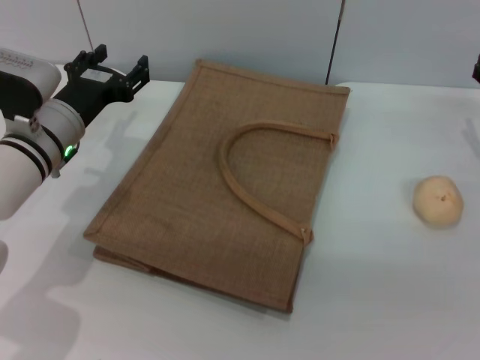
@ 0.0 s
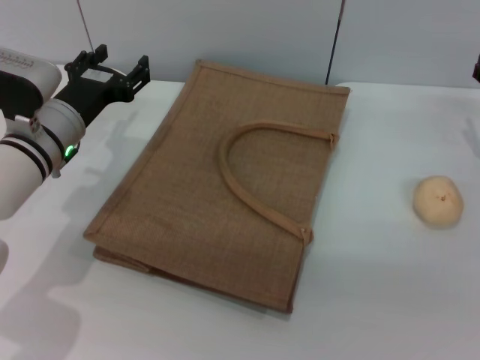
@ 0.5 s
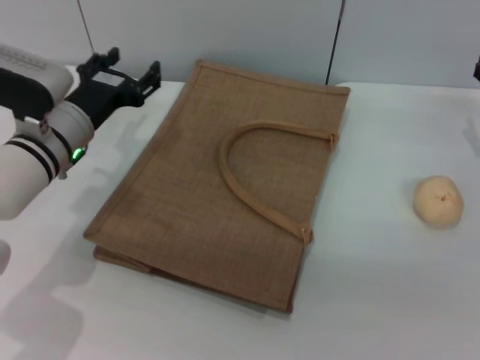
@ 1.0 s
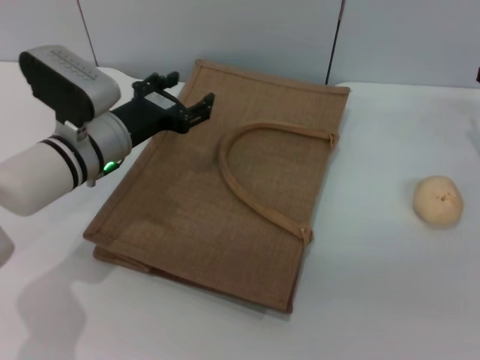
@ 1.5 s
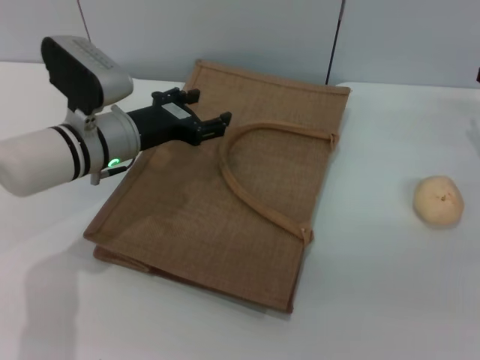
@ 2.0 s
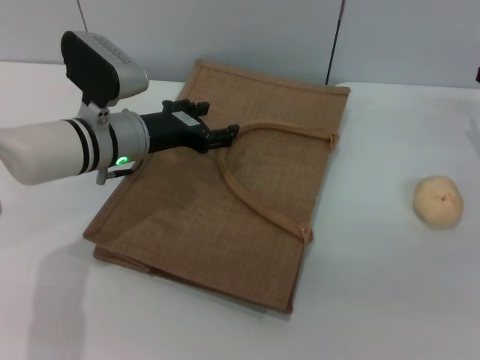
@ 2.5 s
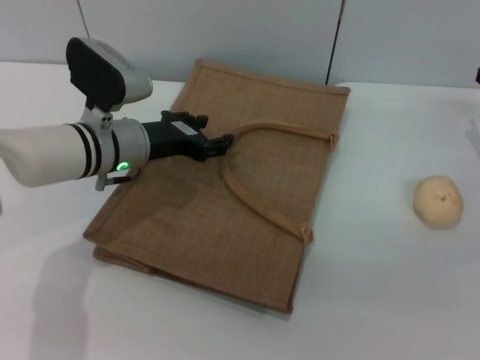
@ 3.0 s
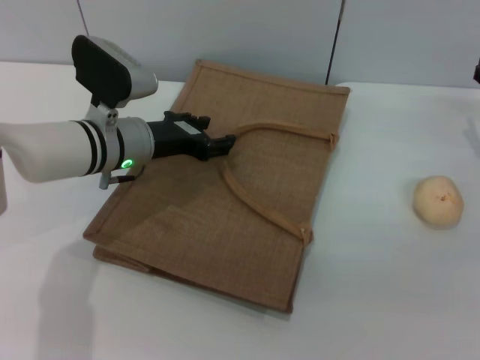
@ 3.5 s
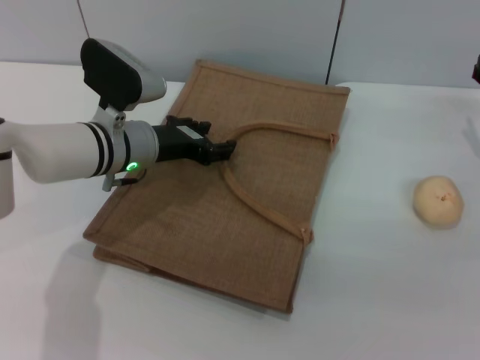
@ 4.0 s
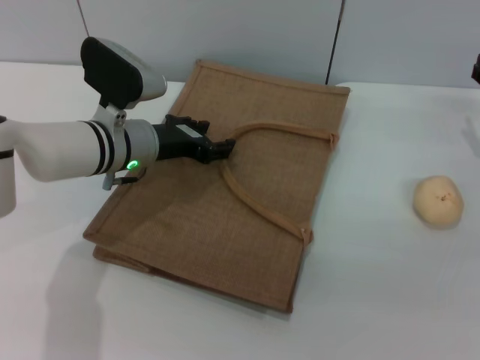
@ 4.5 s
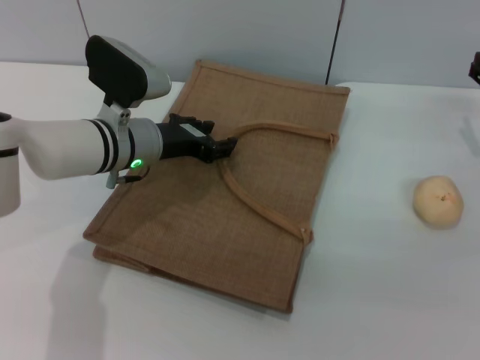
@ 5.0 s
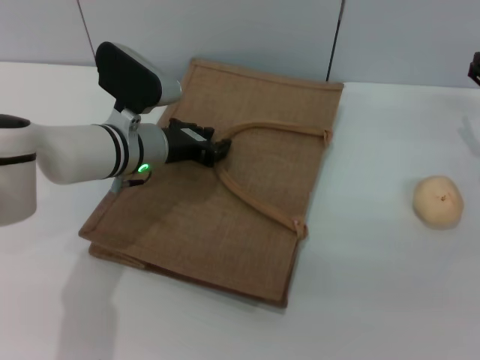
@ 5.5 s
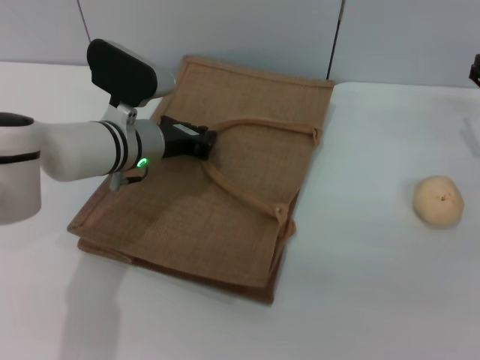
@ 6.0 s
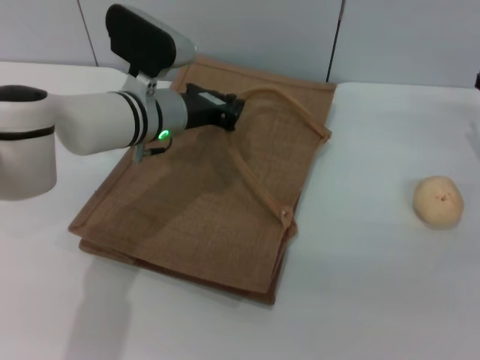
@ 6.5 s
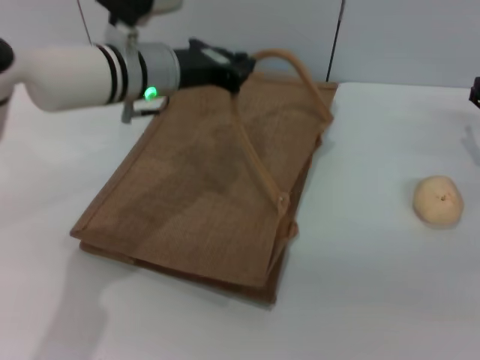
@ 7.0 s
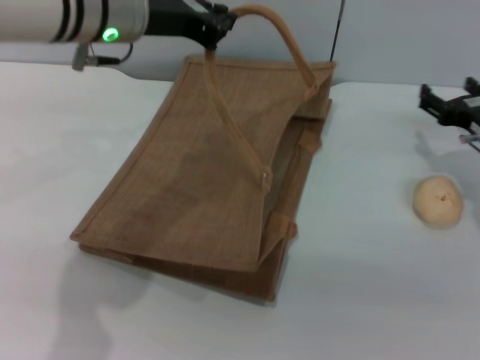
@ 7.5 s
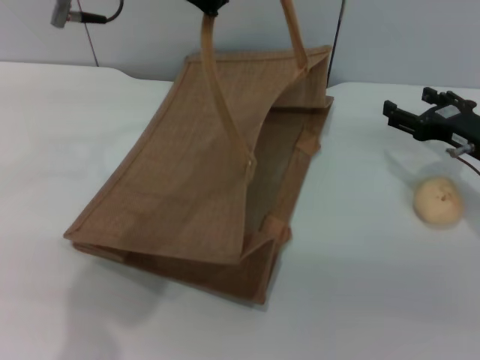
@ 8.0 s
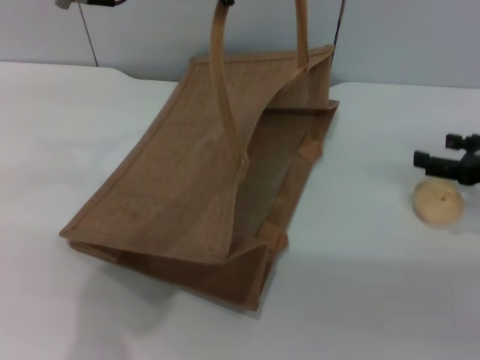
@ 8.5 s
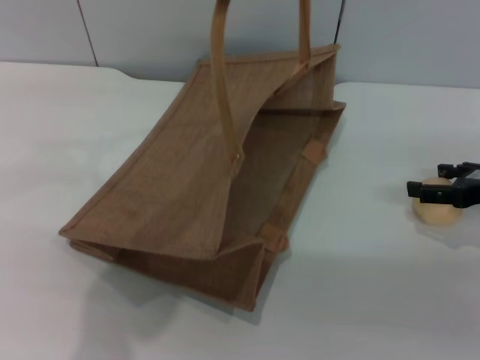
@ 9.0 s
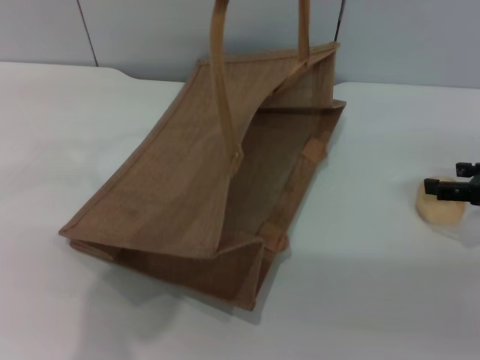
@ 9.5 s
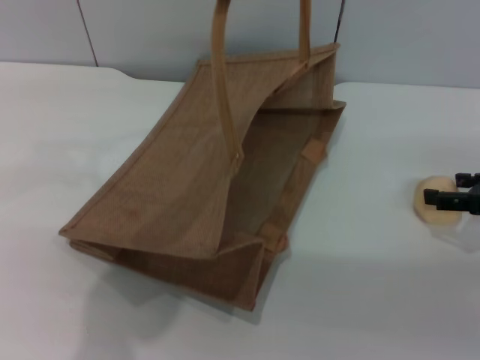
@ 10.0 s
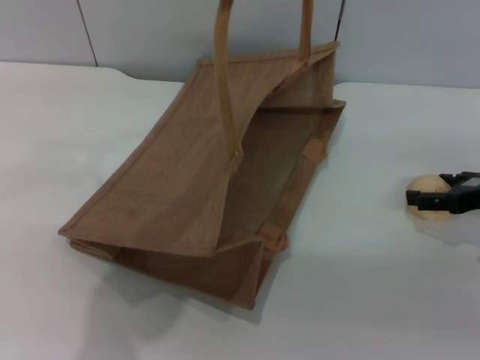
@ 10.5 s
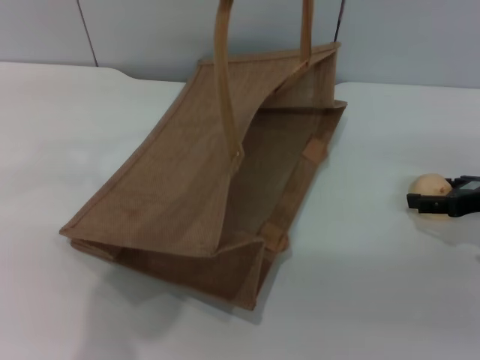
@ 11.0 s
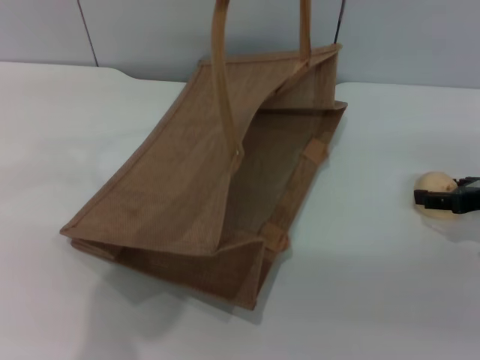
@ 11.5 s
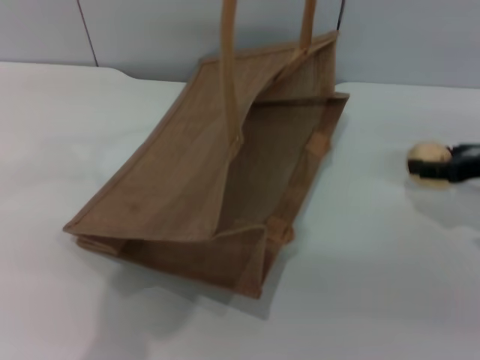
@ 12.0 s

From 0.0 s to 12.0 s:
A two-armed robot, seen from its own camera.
Task of the whole recording: pick up the egg yolk pastry from the table and place it in the brown handbag.
Step, from 0.0 s to 7.0 s: Lift the woven bag with the left gripper to open it.
Step, from 7.5 s to 12.0 s: Pick up the egg yolk pastry with the right gripper.
From 2.0 s to 4.0 s: There are only small adjustments of the grippers.
From 4.0 s to 6.0 s: The left gripper closes.
From 6.0 s to 8.0 s: The left gripper goes roughly 25 cm upward.
From 8.0 s to 10.0 s: The right gripper is displaced to the right by about 5 cm.
From 10.0 s to 12.0 s: The right gripper closes.

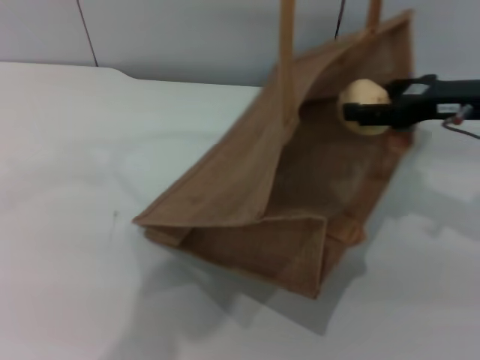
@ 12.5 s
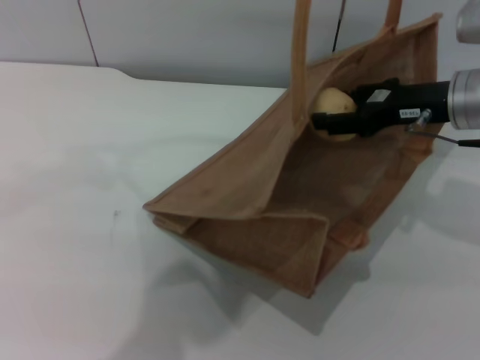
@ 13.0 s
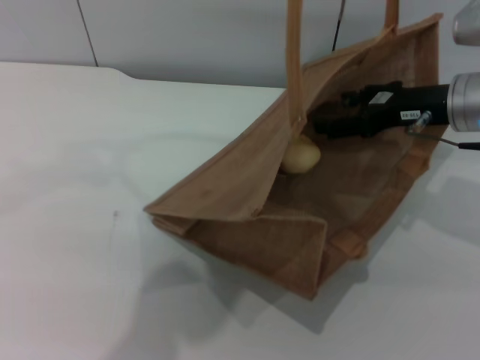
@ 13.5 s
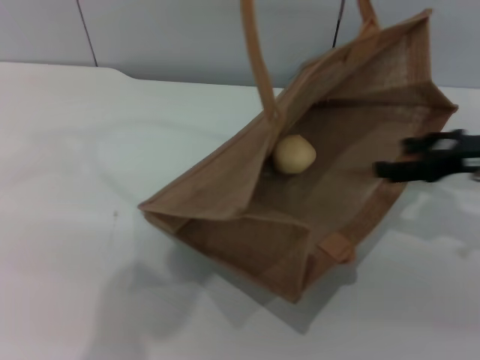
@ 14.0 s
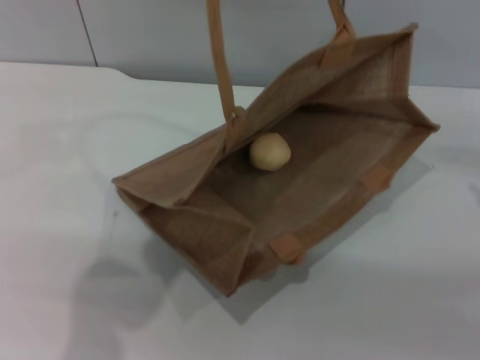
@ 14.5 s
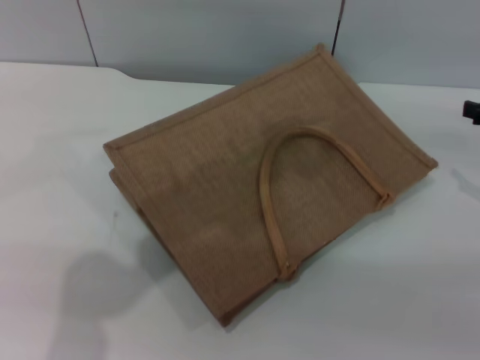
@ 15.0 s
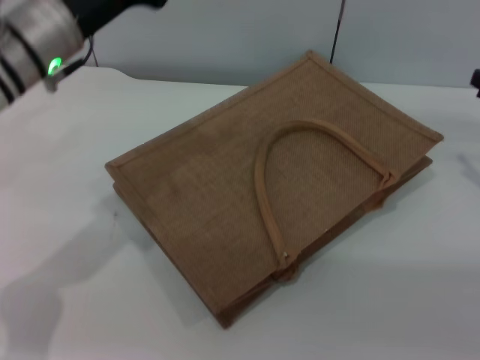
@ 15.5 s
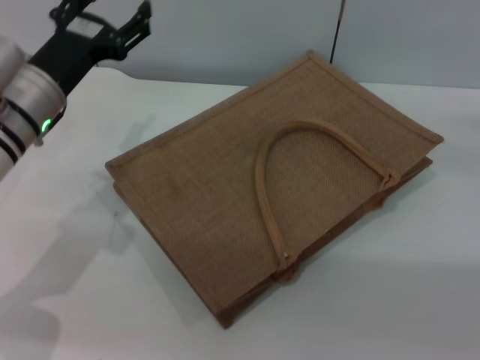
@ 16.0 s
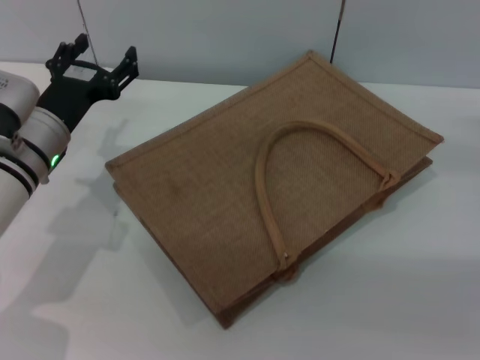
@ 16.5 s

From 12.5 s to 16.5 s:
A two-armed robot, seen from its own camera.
Task of the whole recording: pick up the egg yolk pastry from the table and place it in the brown handbag.
Step, from 12.5 s to 13.5 s: Place the egg yolk pastry into the woven bag with the right gripper.
Step, from 14.0 s to 15.0 s: Lower the woven bag with the left gripper to close it.
From 12.5 s to 14.5 s: The left gripper is displaced to the left by about 5 cm. The right gripper shifts roughly 15 cm to the right and backward, and opens.
From 14.5 s to 16.5 s: The left gripper is displaced downward and to the left by some 25 cm, and opens its fingers; the right gripper is displaced downward by about 10 cm.
